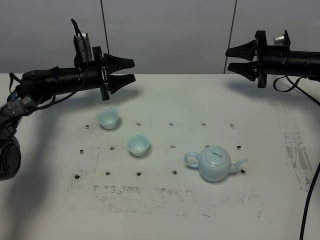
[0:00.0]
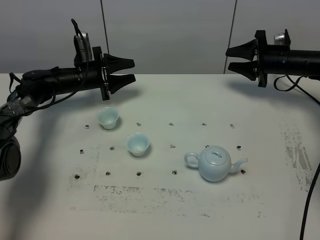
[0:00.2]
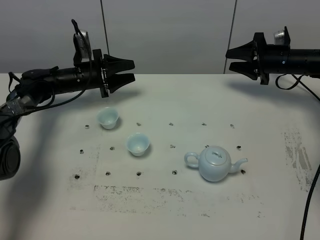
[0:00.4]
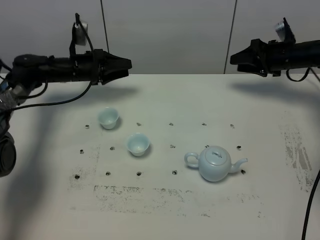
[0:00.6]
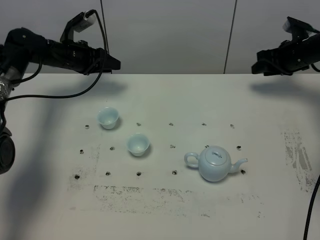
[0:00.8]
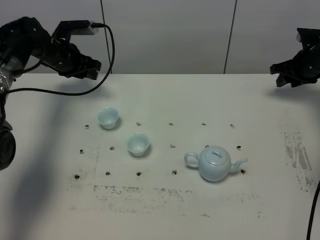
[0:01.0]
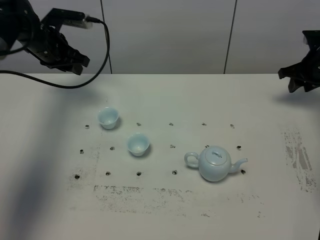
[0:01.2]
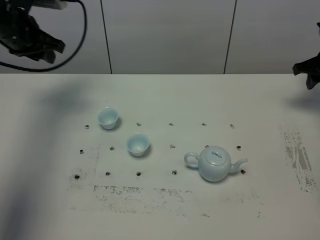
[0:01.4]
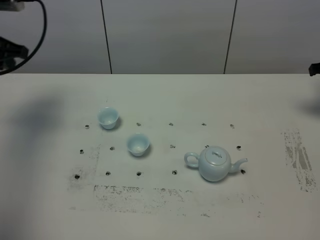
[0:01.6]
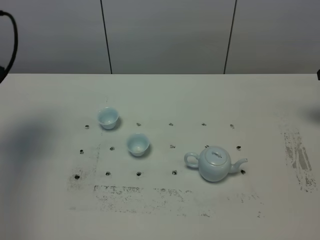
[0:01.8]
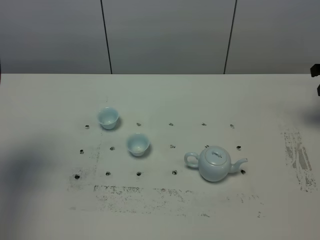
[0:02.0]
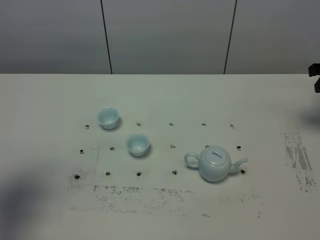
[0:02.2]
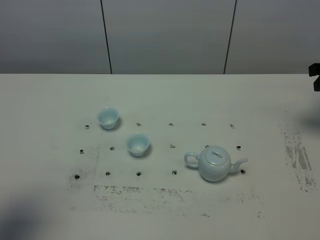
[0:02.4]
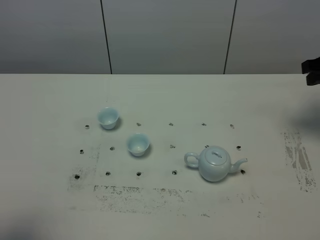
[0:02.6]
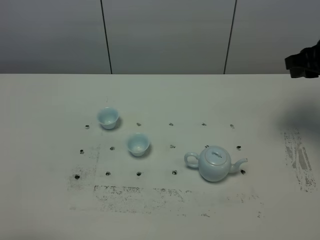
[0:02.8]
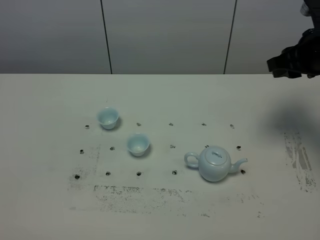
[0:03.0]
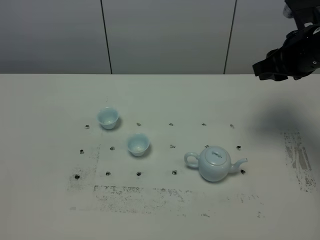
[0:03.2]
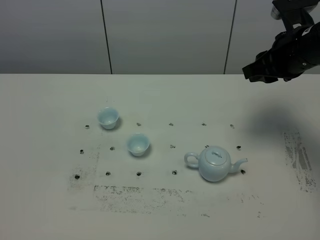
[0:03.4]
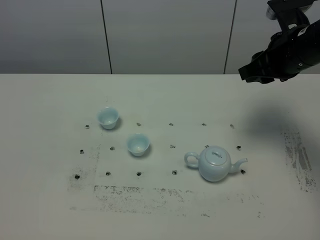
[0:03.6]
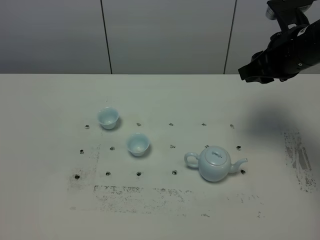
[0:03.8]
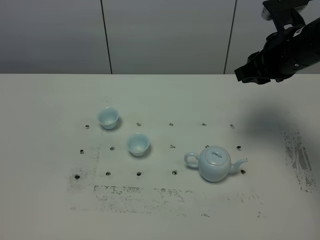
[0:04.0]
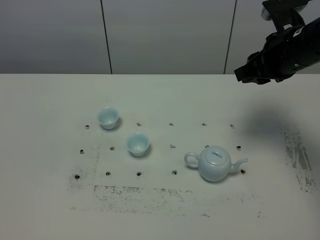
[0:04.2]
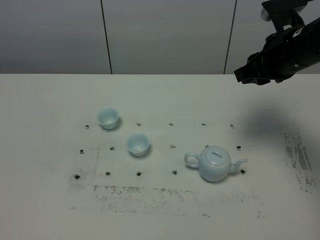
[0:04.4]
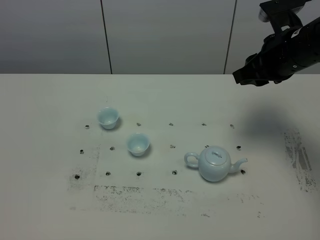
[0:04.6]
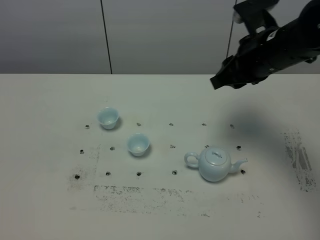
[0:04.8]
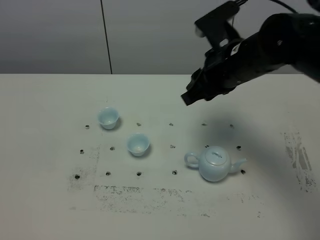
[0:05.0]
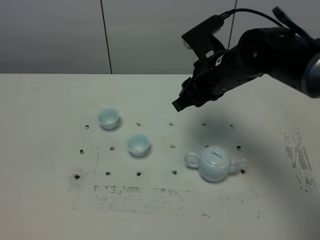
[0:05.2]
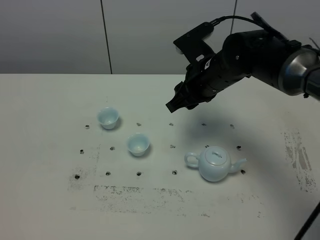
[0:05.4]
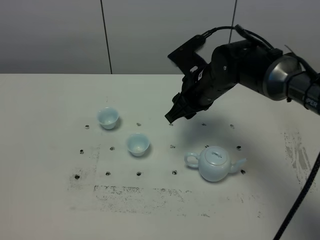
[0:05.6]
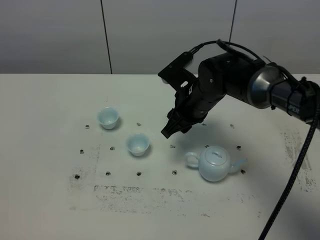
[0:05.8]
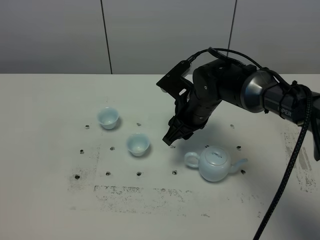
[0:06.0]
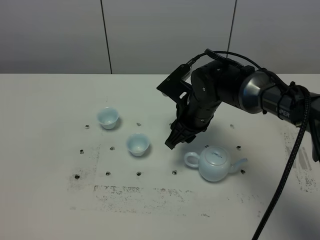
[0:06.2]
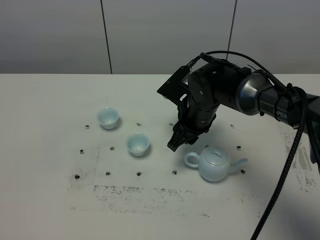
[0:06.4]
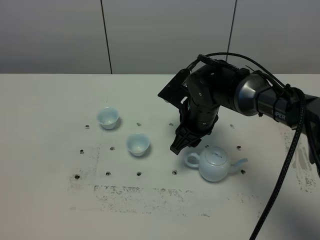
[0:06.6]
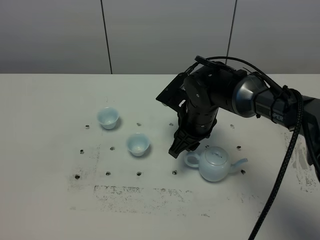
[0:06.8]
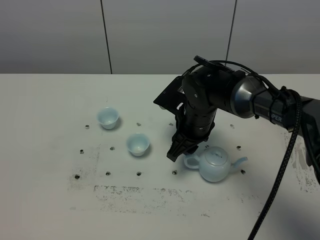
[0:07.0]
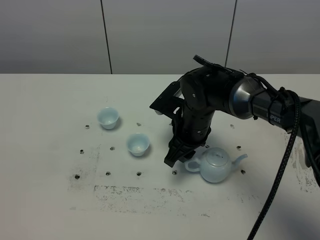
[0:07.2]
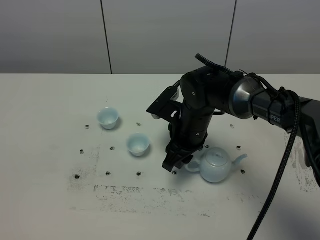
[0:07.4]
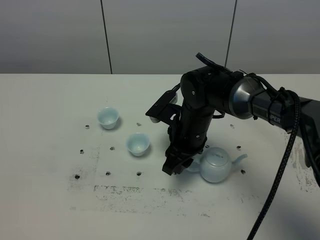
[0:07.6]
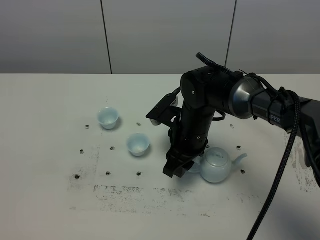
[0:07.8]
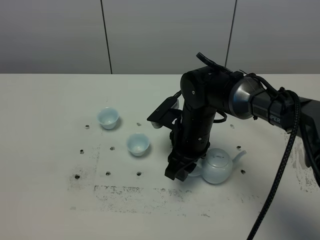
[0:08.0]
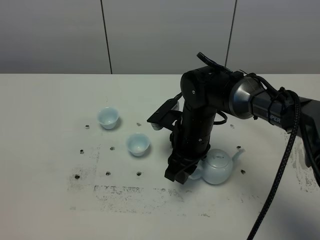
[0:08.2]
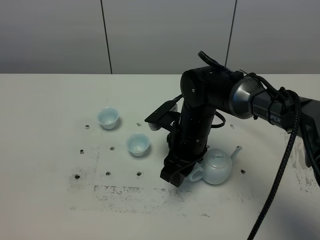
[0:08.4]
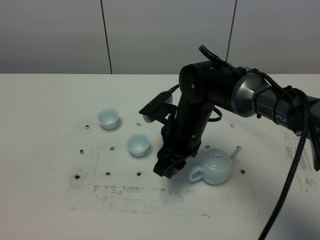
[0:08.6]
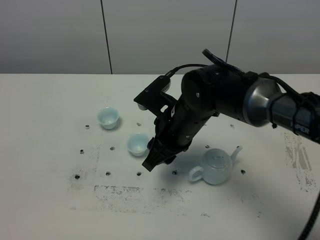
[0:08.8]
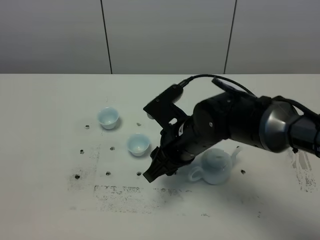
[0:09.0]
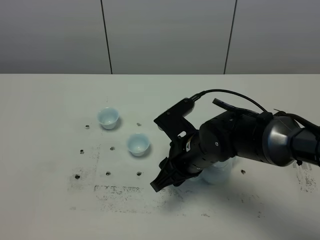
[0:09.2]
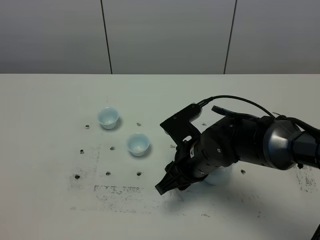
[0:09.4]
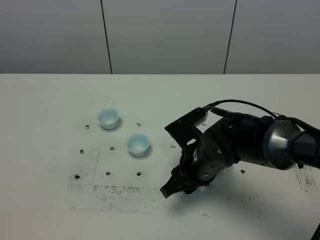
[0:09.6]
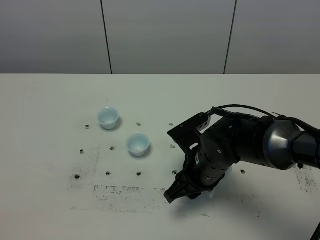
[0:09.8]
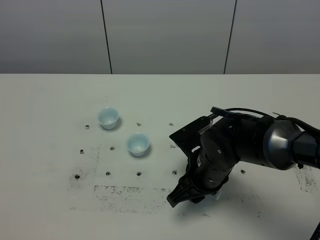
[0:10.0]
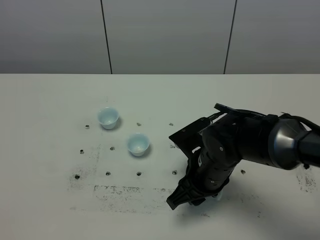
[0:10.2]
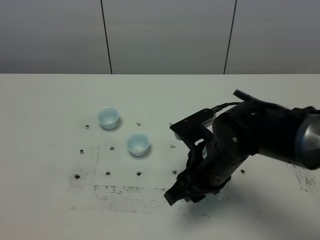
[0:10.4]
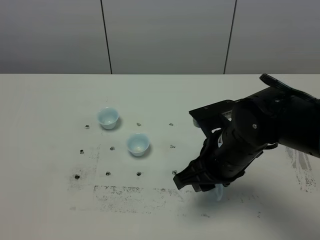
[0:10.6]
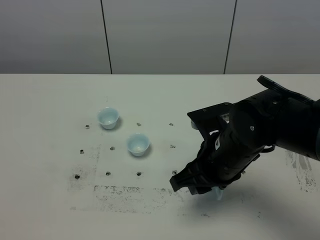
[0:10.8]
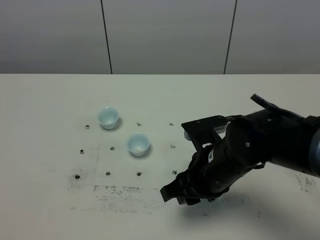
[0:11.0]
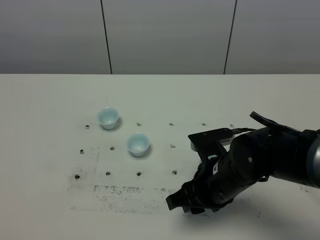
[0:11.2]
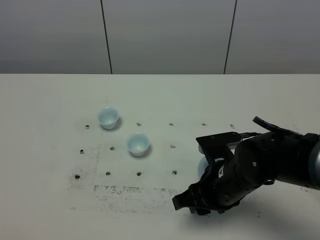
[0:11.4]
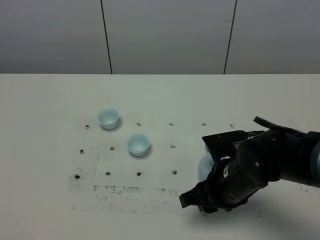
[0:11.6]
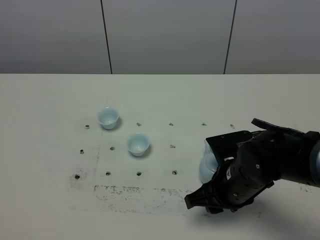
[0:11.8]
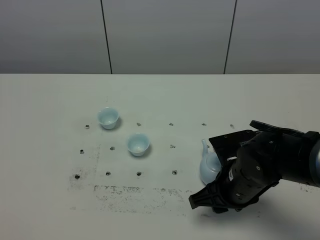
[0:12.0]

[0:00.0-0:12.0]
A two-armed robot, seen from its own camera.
Task of the whole recording: grasp the blue porcelain teapot and pour the tea into the two blue porcelain teacups one by one, put the blue porcelain teapot back in its original place.
0:00.0 to 0:01.6: The left gripper is displaced upward, backward and to the left by approximately 30 cm, and closes; the right gripper travels to the right, upward and backward by approximately 15 cm.
0:01.6 to 0:03.0: The left gripper shifts about 35 cm backward. Meanwhile the right gripper is displaced to the left, backward and upward by some 20 cm.
0:03.0 to 0:04.4: The right gripper moves to the left, roughly 5 cm.
0:04.4 to 0:06.0: The right gripper shifts about 20 cm to the left and downward.
0:07.6 to 0:09.0: The right gripper travels backward by approximately 5 cm.
0:09.0 to 0:10.4: The right gripper ends up approximately 5 cm from where it was.
0:10.4 to 0:12.0: The right gripper heads downward, covering approximately 5 cm.

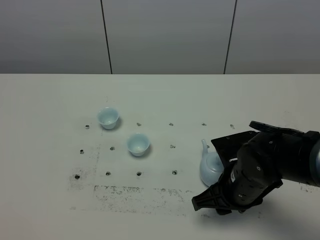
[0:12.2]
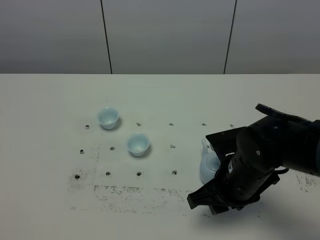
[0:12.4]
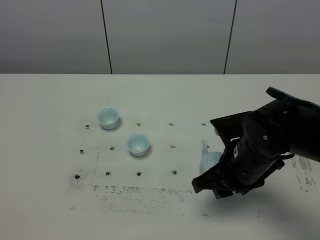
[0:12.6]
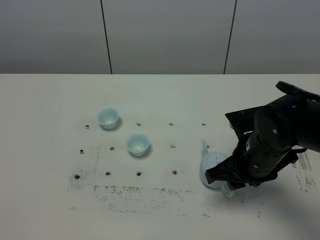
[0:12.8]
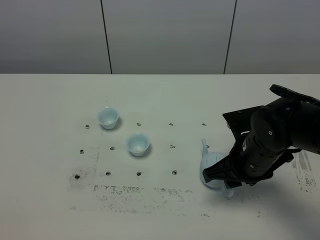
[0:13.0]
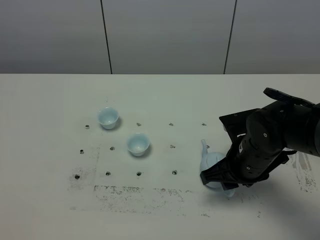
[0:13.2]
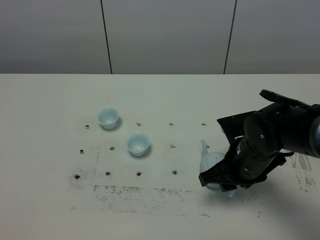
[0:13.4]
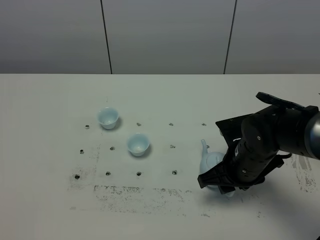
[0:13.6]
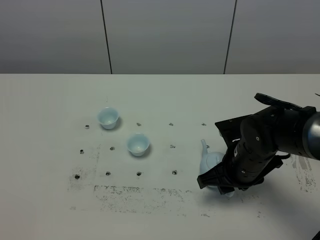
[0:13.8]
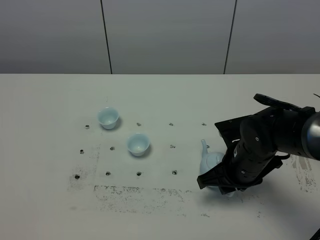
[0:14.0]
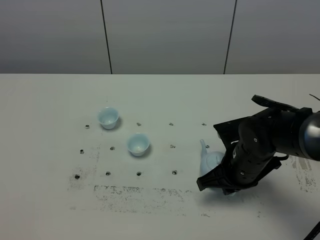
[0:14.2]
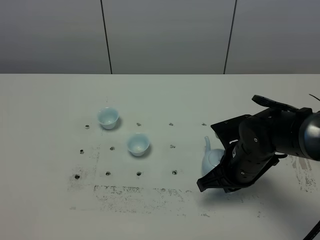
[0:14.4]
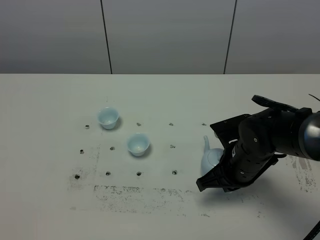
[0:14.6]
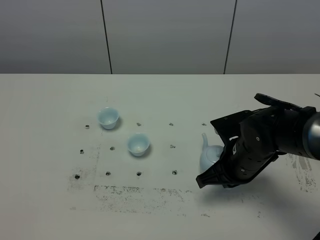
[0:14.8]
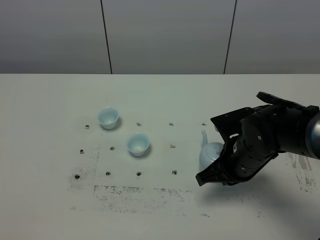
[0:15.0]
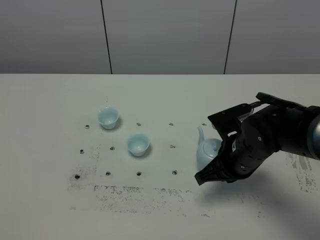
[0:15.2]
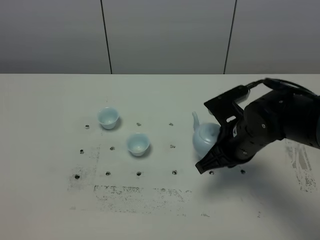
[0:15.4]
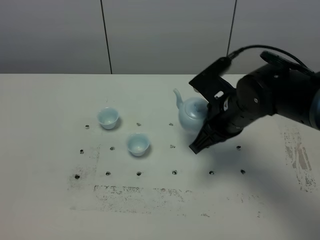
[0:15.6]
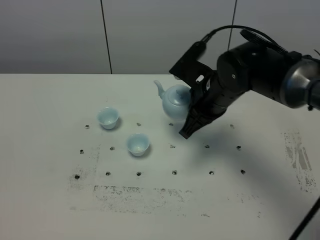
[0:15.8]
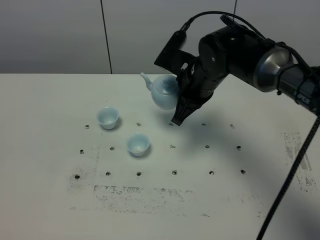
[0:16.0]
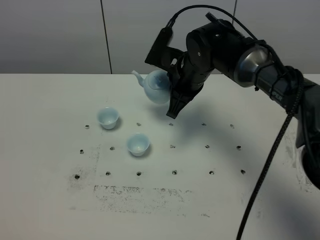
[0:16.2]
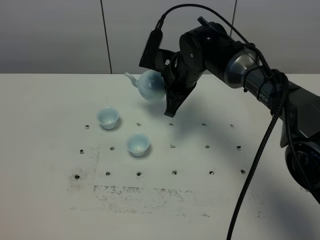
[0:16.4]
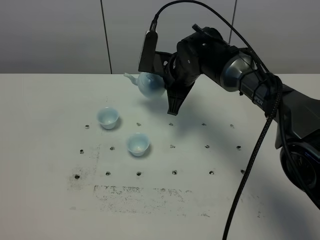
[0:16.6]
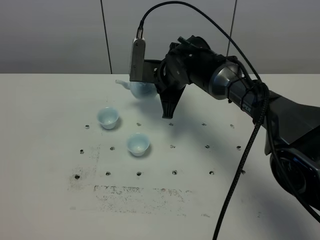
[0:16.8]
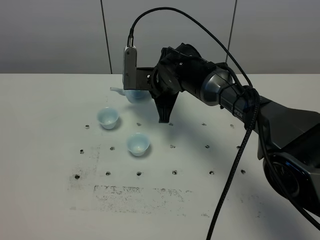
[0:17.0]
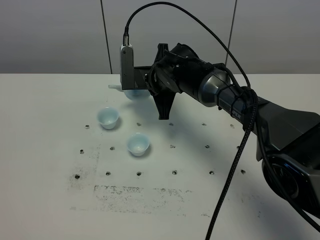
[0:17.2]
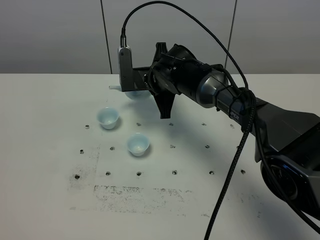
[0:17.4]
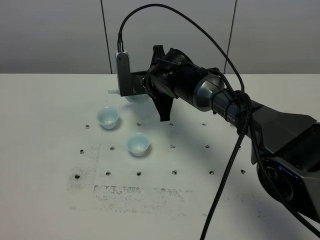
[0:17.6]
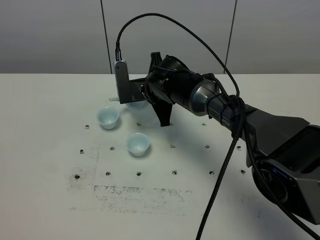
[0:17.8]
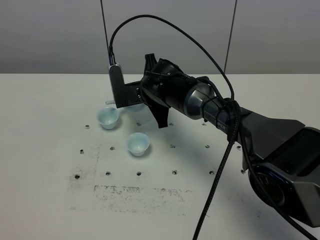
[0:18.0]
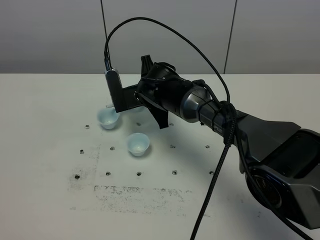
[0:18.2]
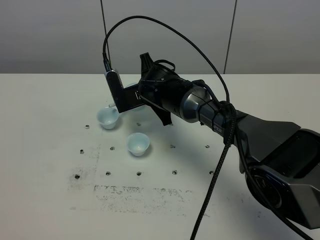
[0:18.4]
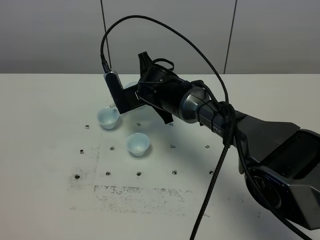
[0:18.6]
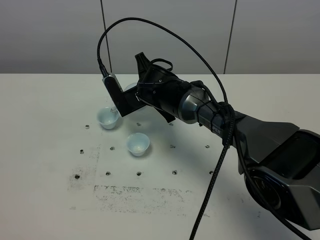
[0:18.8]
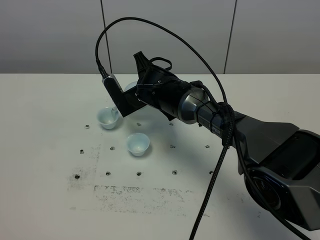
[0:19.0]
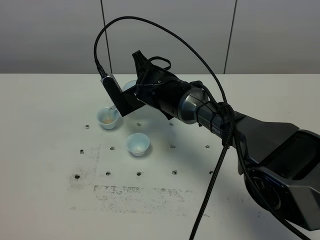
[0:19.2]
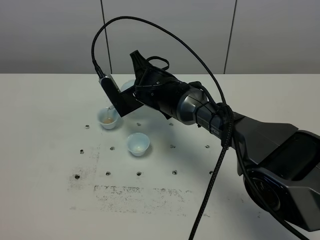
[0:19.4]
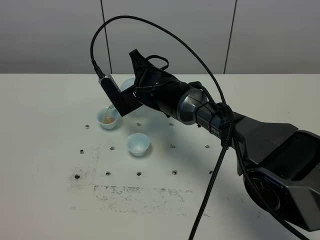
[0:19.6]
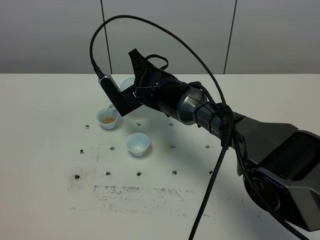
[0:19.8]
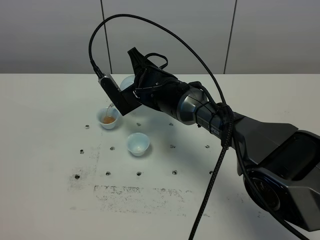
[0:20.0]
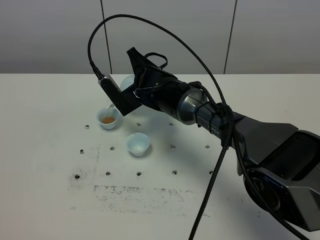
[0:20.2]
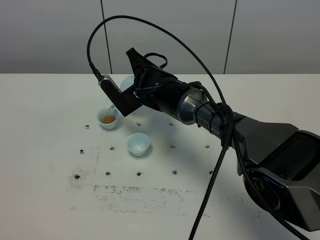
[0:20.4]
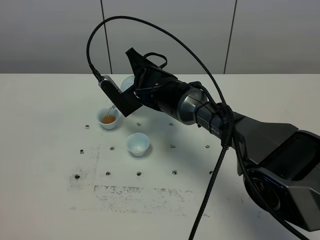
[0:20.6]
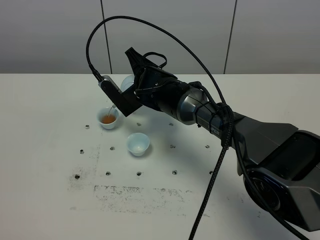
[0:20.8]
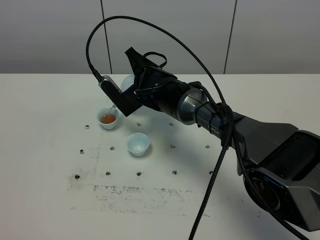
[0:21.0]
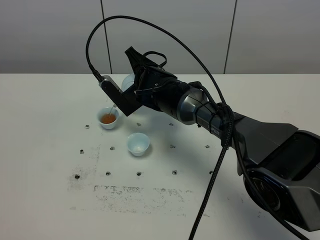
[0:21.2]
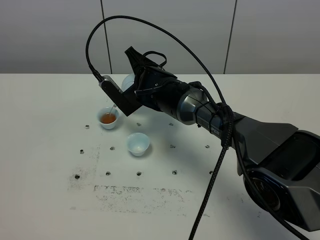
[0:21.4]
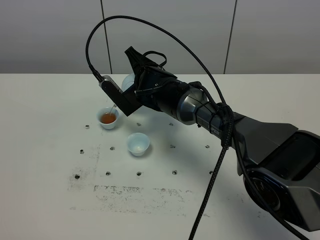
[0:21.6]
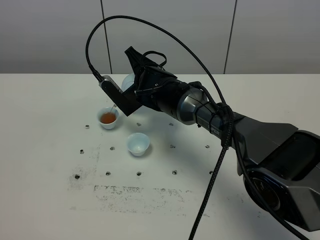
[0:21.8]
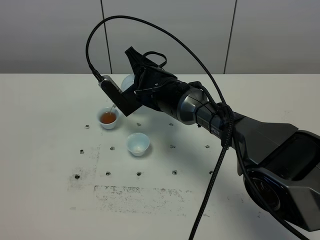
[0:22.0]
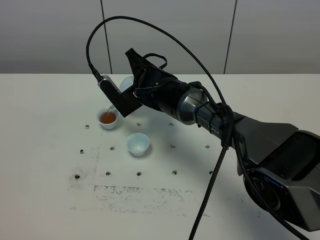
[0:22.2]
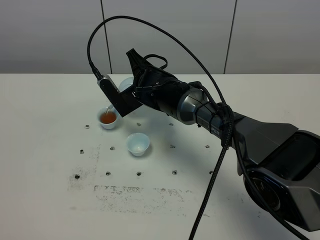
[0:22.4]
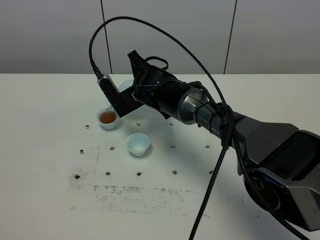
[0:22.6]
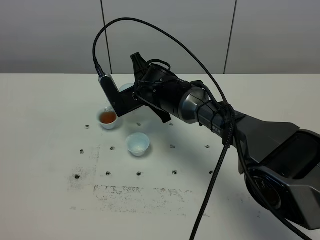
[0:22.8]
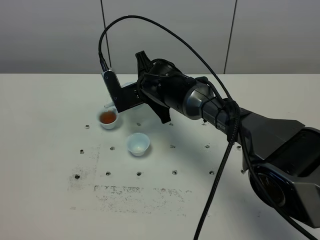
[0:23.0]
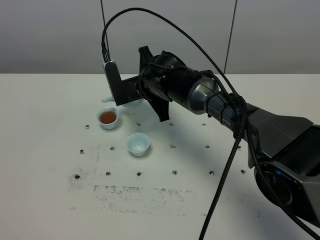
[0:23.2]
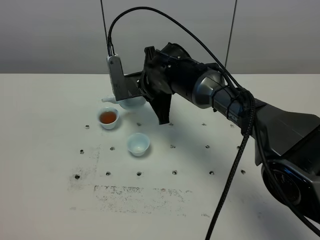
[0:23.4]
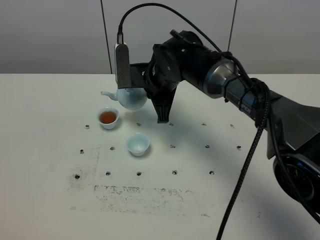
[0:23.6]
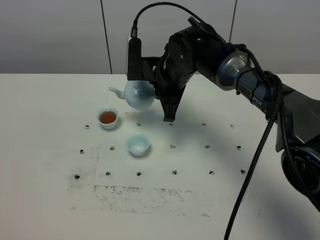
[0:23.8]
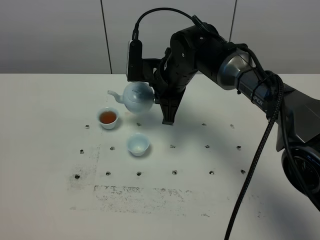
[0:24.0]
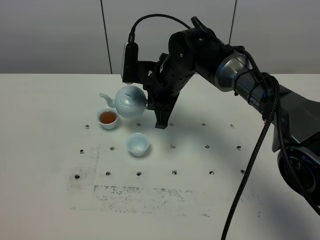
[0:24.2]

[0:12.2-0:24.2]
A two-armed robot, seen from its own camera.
Task of the whole recording: grasp the blue porcelain teapot and pour the tea into the two blue porcelain teacups one by one, put the blue porcelain teapot back in its original place.
Step, 0:12.2 to 0:15.2: Pick up the teapot with the right gripper.
0:12.2 to 0:13.8: There are only small adjustments of the grippers.
0:13.8 to 0:15.2: The right gripper closes.
0:15.2 to 0:16.6: The right gripper shifts roughly 20 cm forward and to the left.
0:16.6 to 0:18.2: The right gripper travels to the left by roughly 5 cm.
0:18.2 to 0:19.8: The grippers stay close to where they were, moving slightly.
0:19.8 to 0:22.6: There are only small adjustments of the grippers.
0:22.6 to 0:24.2: The right gripper changes place by roughly 5 cm.
